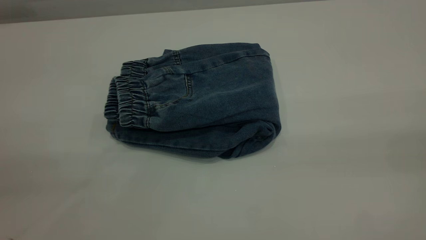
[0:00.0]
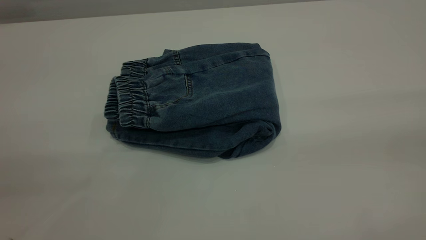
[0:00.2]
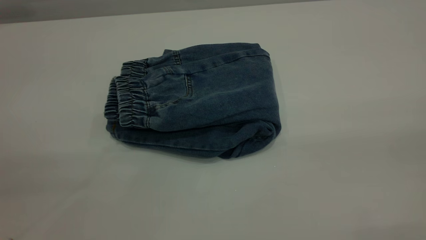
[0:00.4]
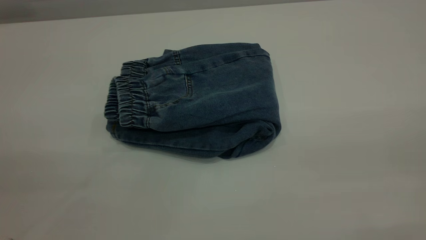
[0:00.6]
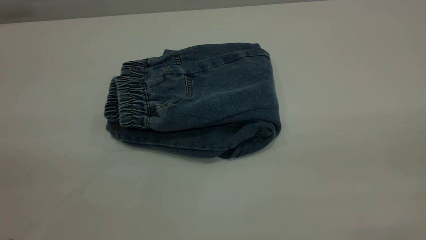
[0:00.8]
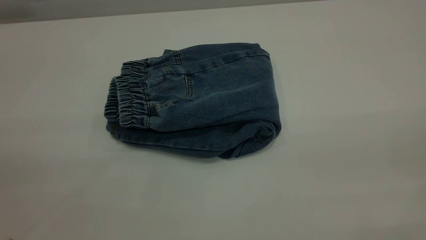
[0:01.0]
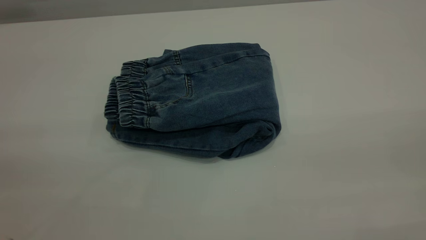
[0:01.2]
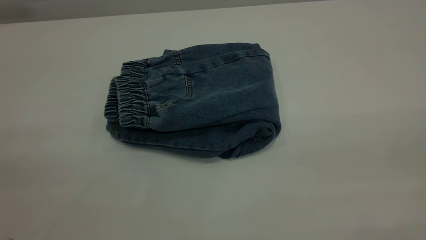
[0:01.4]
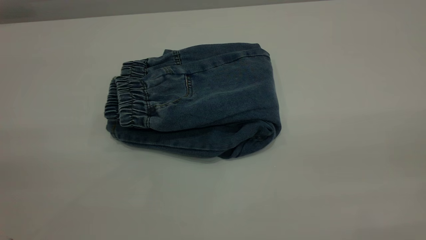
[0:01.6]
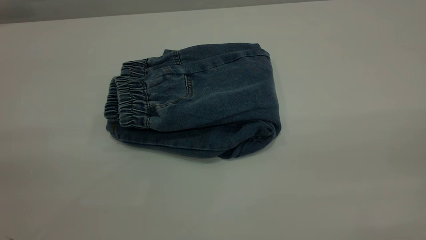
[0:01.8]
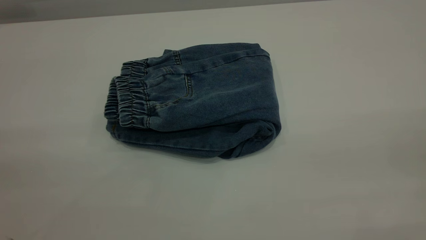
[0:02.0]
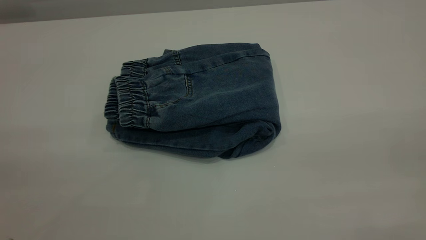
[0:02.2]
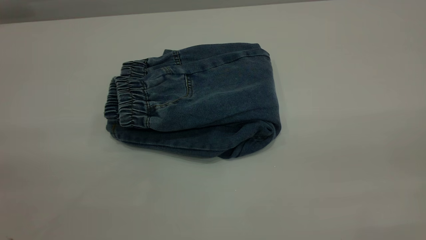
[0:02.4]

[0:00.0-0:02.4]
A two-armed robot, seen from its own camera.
0:01.2 to 0:02.4: Both grippers stay put.

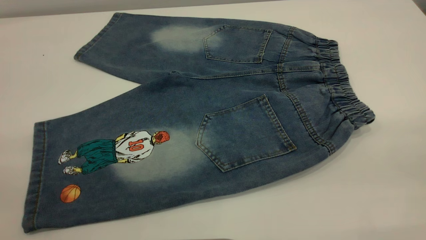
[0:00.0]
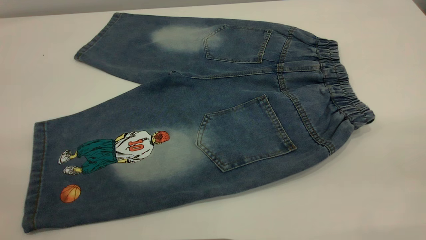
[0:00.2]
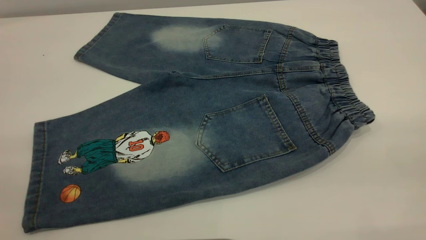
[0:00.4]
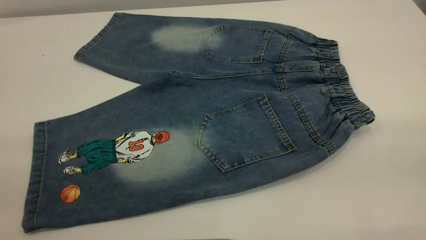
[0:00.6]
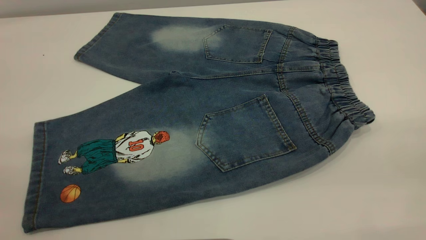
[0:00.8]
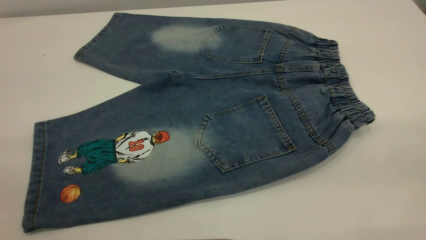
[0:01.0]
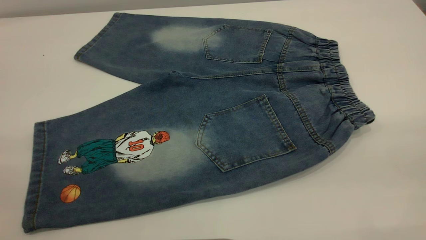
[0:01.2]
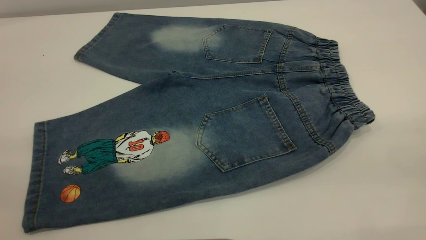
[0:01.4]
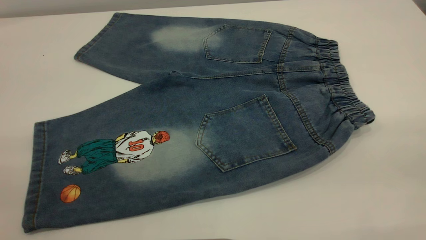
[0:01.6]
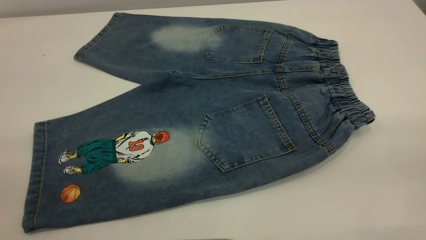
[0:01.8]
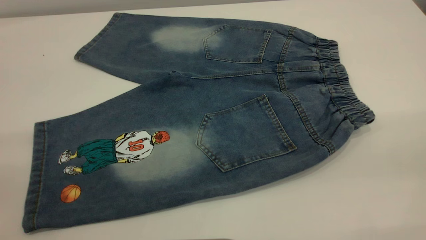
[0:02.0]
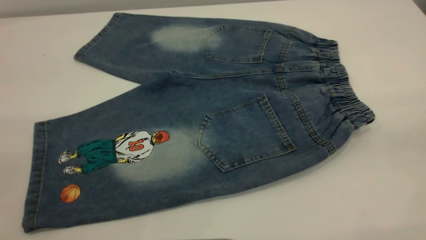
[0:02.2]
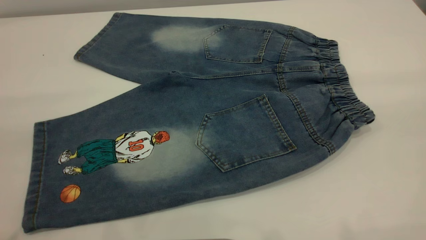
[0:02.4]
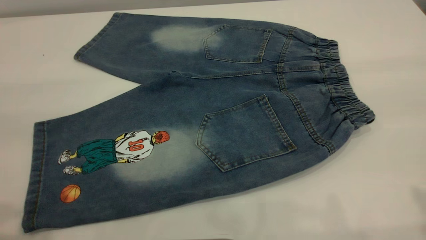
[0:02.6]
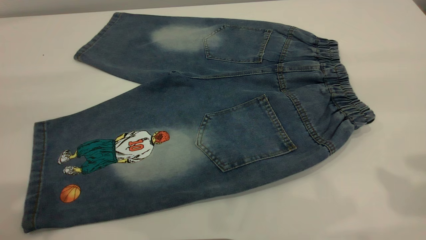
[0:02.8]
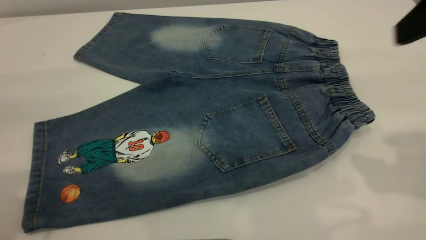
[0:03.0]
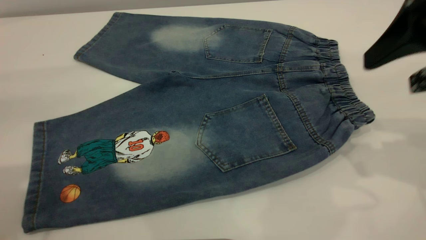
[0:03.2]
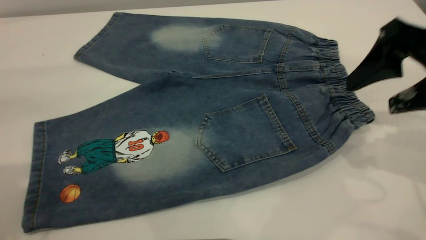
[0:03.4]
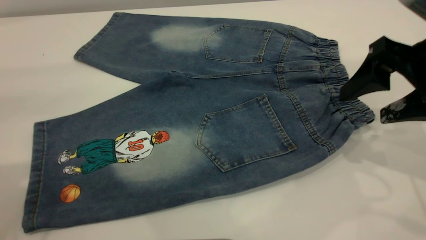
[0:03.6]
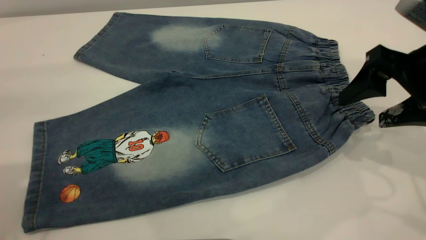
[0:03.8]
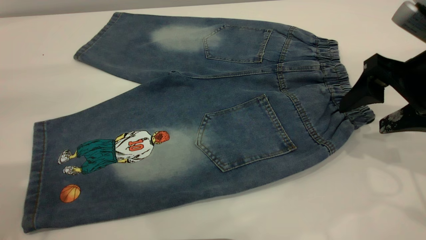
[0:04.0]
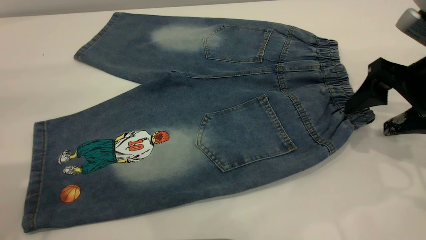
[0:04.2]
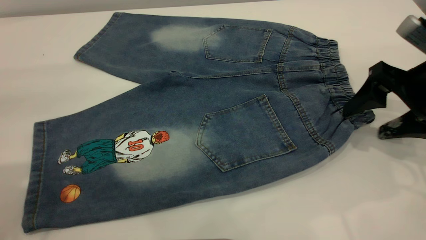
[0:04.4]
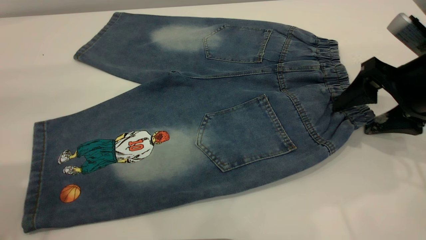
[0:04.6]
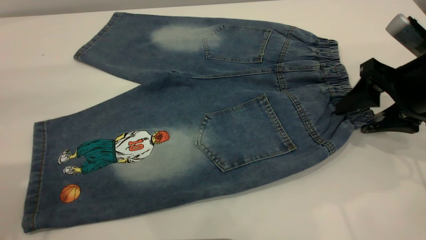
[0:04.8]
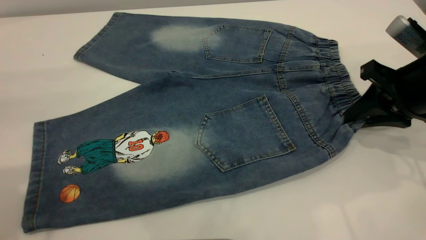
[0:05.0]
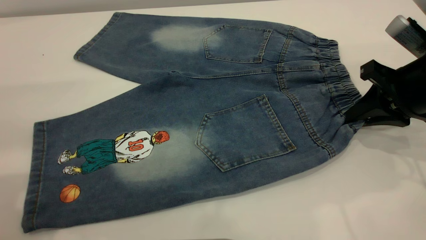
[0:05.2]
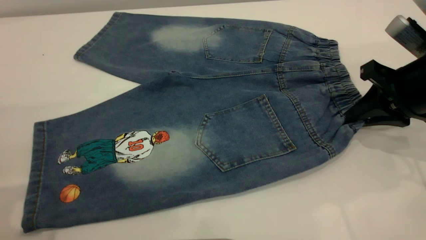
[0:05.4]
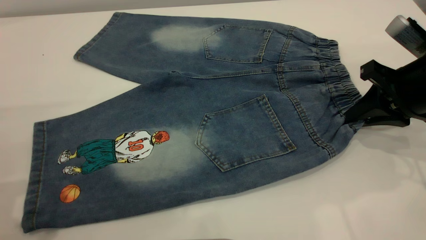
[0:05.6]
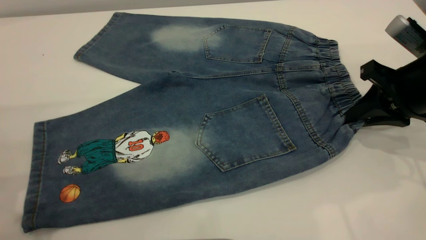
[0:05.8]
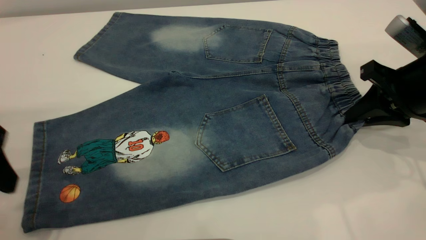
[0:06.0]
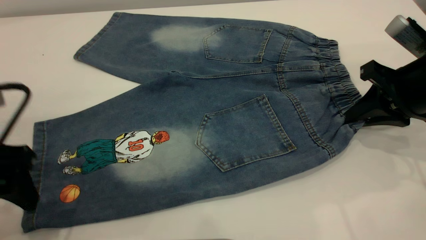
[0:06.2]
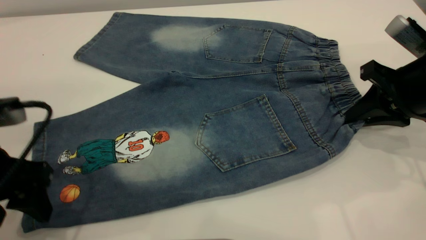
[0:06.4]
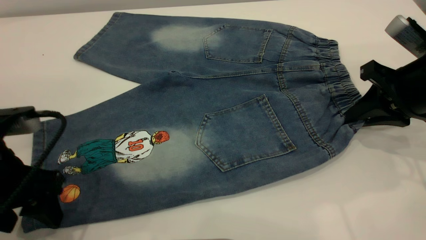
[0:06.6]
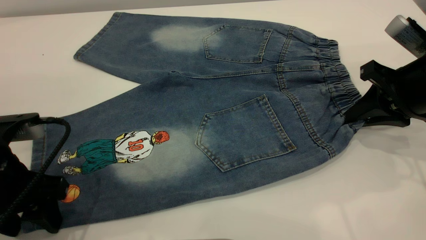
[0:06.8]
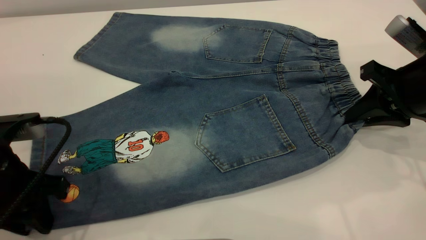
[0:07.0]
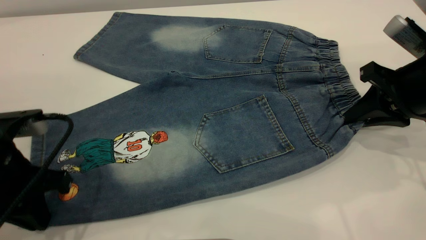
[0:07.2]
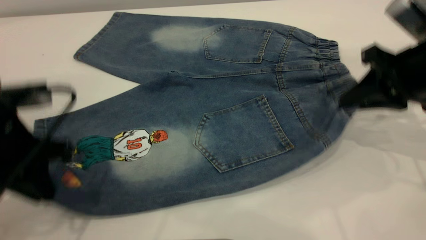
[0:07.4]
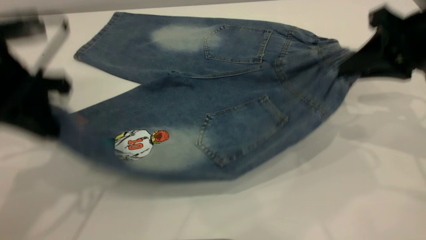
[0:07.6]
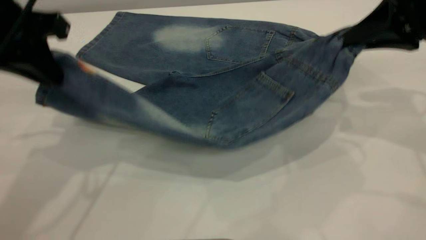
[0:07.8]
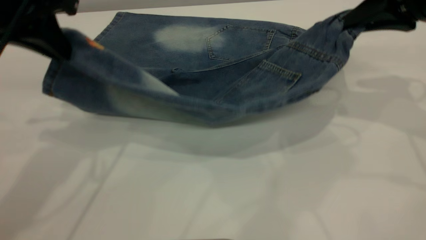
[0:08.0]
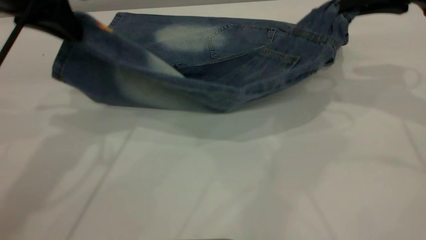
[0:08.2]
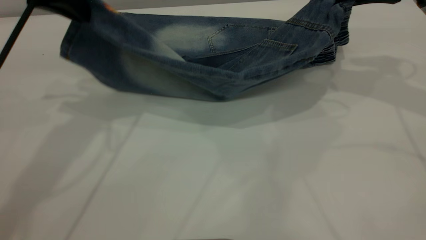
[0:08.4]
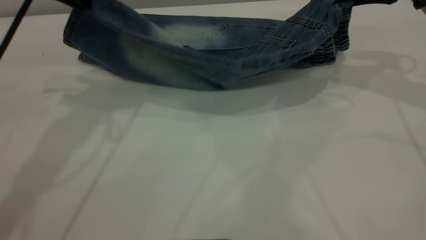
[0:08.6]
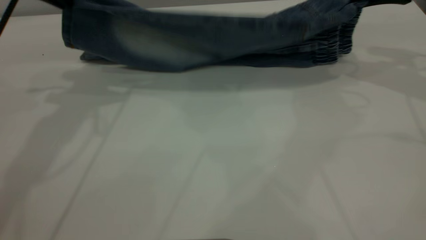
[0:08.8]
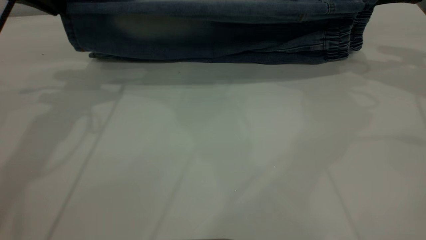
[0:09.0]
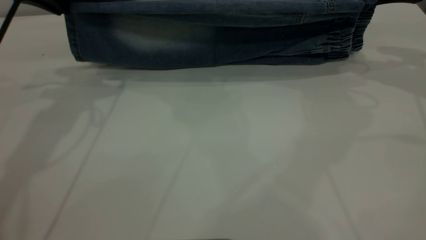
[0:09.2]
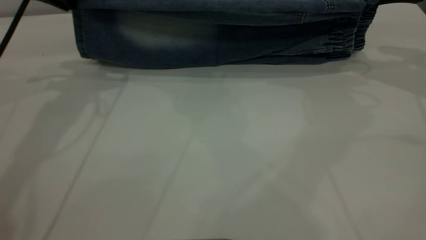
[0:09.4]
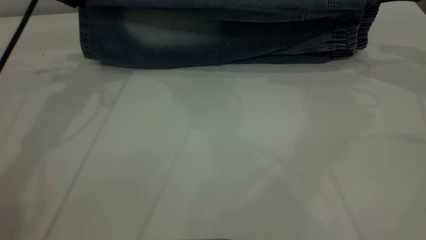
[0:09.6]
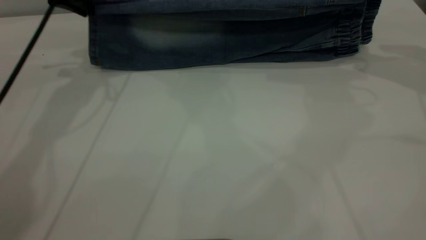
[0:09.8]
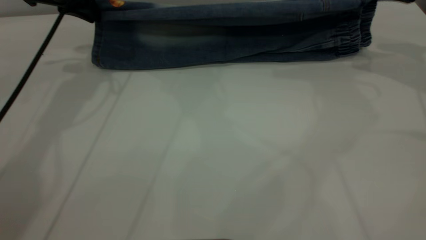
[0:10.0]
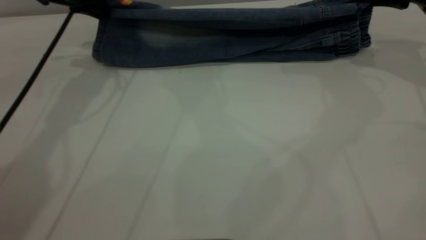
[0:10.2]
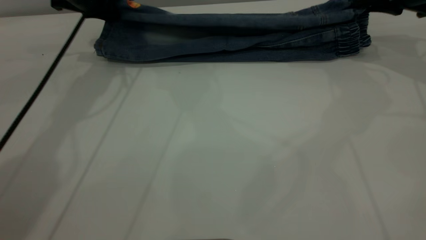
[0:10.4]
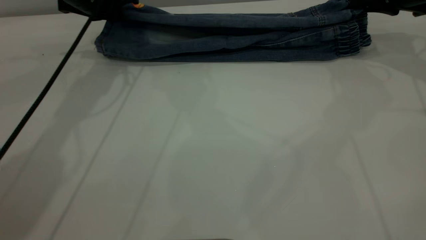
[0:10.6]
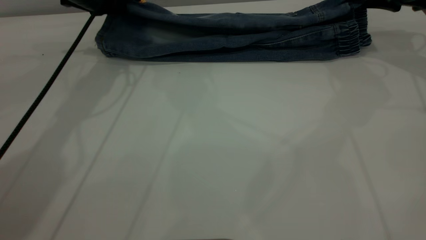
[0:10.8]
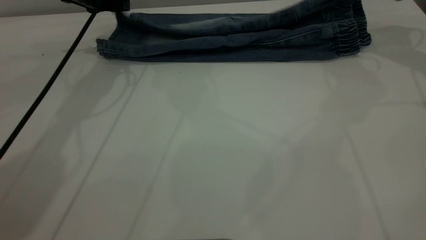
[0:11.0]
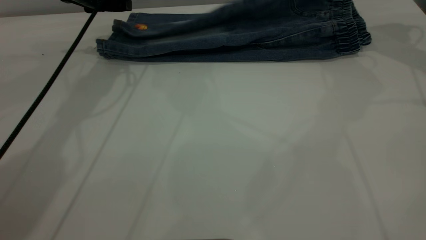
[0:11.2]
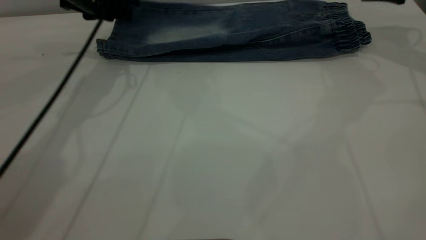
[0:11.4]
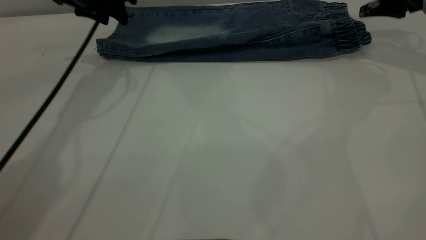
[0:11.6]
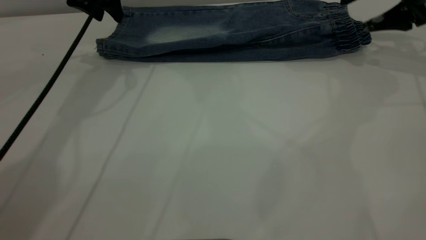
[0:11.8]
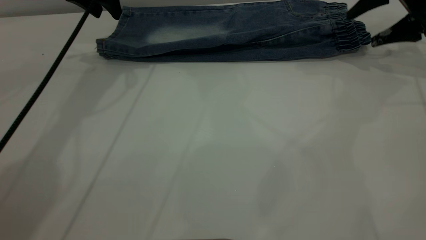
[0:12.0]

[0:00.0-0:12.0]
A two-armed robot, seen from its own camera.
Step, 0:00.0 to 0:11.4: Fold the bottom of the pants upward.
0:00.0 to 0:01.6: Both grippers stay about where they are.
0:01.6 to 0:03.0: The right gripper moves forward, some 20 cm.
0:03.0 to 0:04.4: The right gripper moves downward and forward, about 15 cm.
0:04.4 to 0:06.0: The left gripper heads downward, covering about 15 cm. The right gripper closes up.
0:06.0 to 0:07.6: The right gripper goes about 10 cm upward. The left gripper moves forward, about 5 cm, moves roughly 5 cm downward and comes back, and closes its fingers.
0:07.6 to 0:09.0: The right gripper is displaced forward and to the right by some 10 cm. Meanwhile the left gripper heads forward, covering about 10 cm.
0:09.0 to 0:10.4: The right gripper goes roughly 10 cm downward and forward; the left gripper shifts approximately 15 cm forward and downward.
0:10.4 to 0:12.0: The left gripper ends up approximately 5 cm from where it was, and opens its fingers. Meanwhile the right gripper opens up.

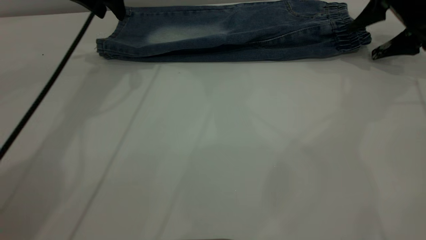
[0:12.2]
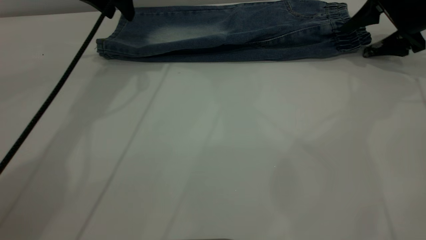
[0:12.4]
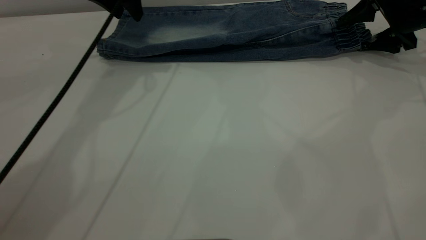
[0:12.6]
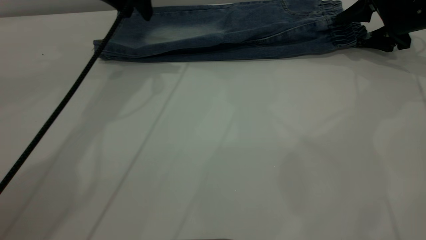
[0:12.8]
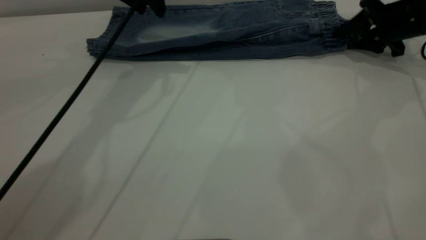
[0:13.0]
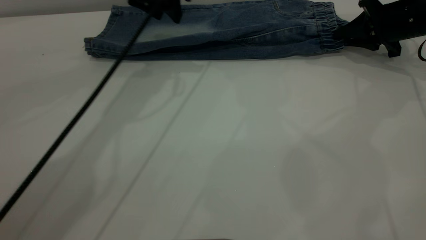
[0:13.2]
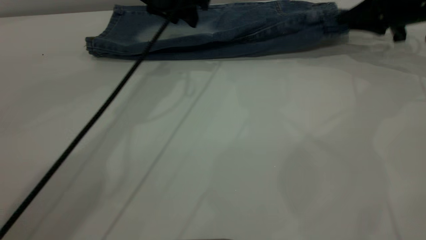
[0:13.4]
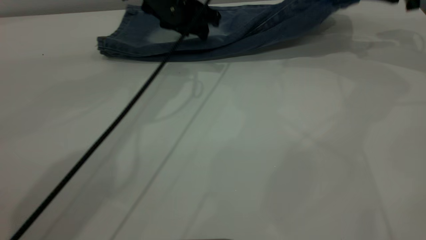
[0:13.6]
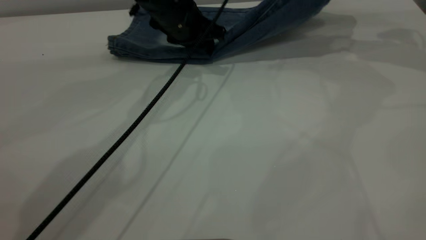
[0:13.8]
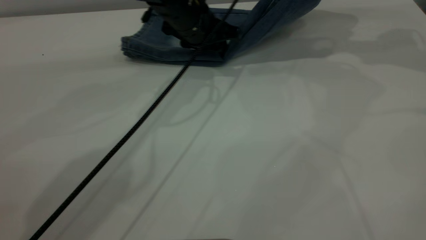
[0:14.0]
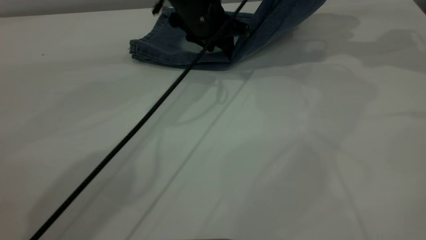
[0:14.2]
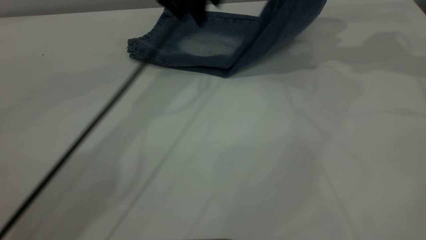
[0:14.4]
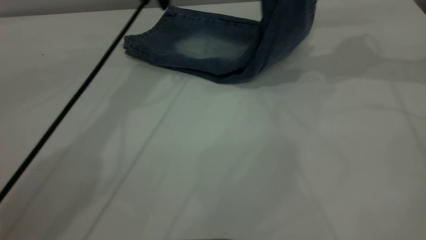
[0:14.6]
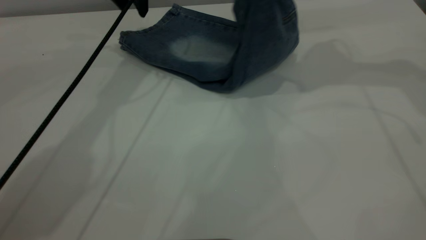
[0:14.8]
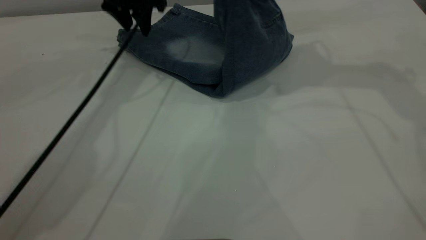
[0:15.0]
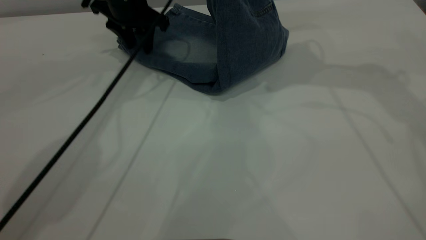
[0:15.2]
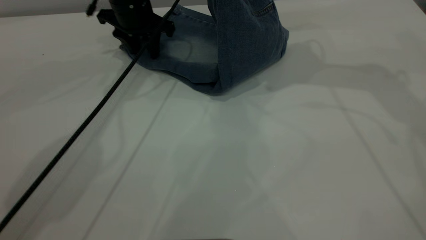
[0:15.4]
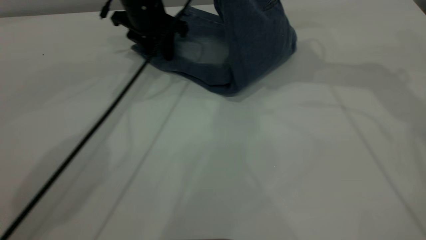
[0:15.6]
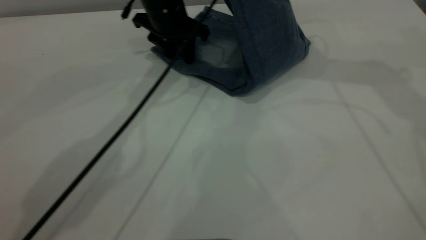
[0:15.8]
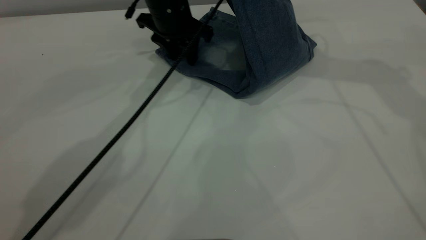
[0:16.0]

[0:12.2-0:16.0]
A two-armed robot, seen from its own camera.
0:12.2 to 0:13.4: The left gripper moves to the right, approximately 10 cm, while the right gripper closes its fingers.
0:13.4 to 0:14.8: The right gripper is displaced to the left and upward by some 20 cm; the left gripper heads to the left, covering roughly 5 cm.
0:14.8 to 0:16.0: The left gripper moves downward and to the right, some 10 cm.
